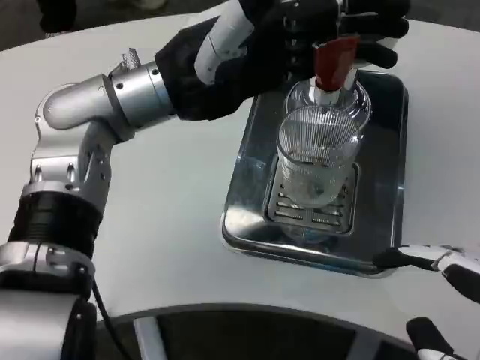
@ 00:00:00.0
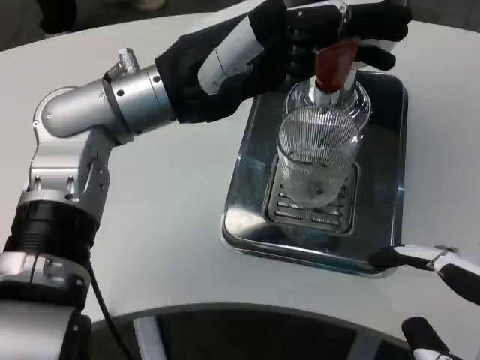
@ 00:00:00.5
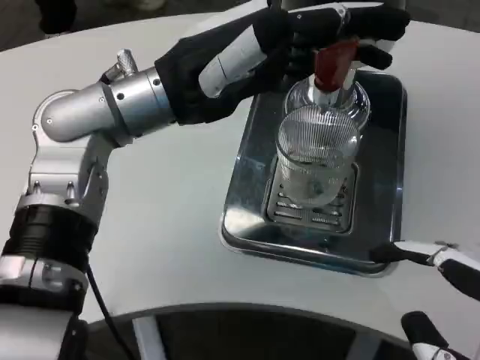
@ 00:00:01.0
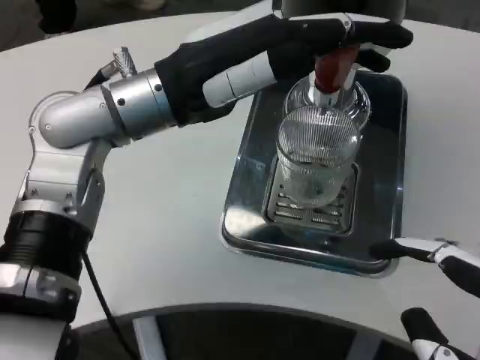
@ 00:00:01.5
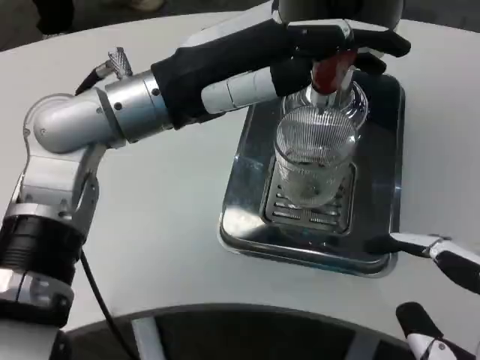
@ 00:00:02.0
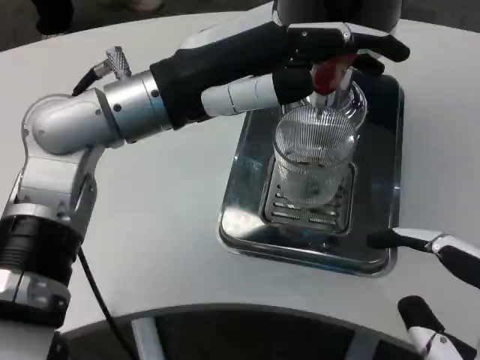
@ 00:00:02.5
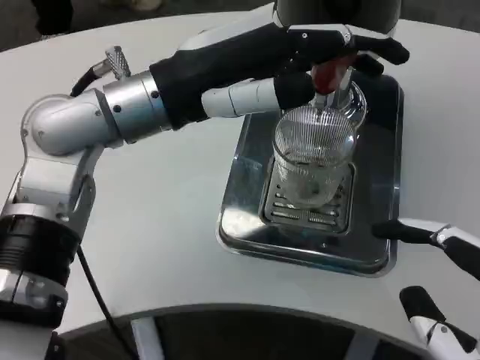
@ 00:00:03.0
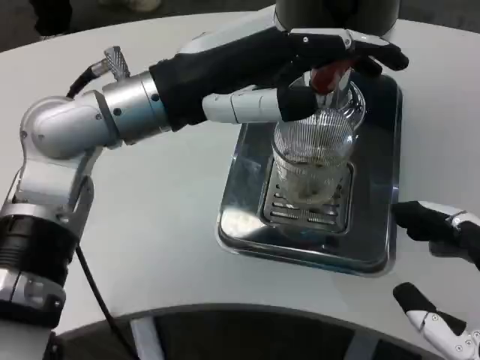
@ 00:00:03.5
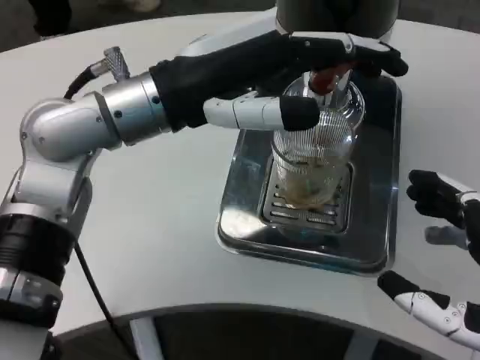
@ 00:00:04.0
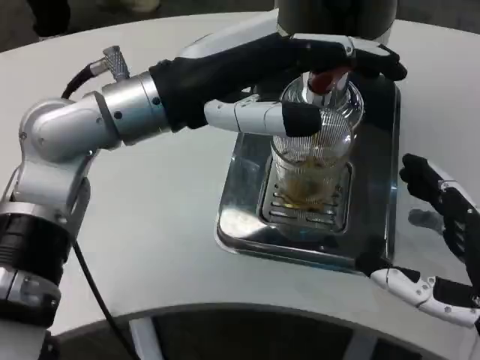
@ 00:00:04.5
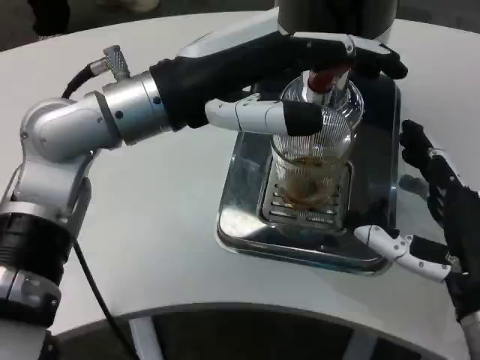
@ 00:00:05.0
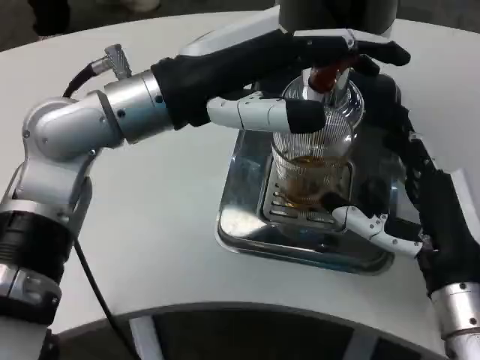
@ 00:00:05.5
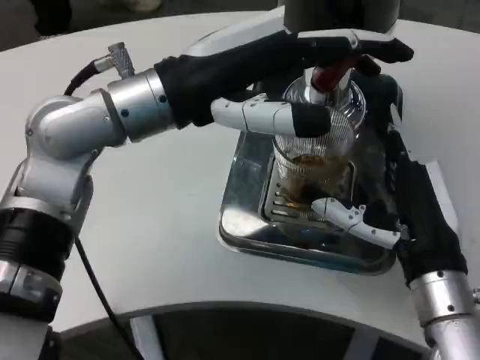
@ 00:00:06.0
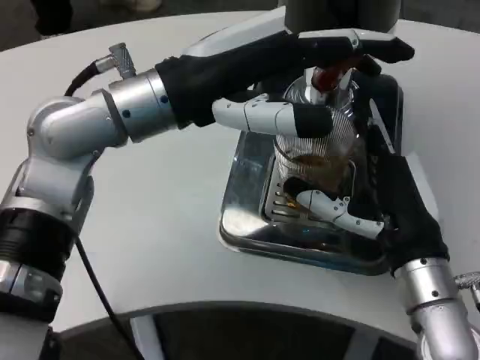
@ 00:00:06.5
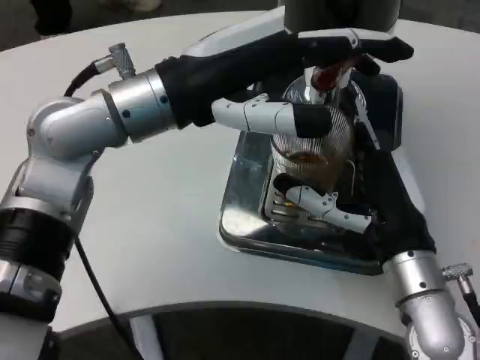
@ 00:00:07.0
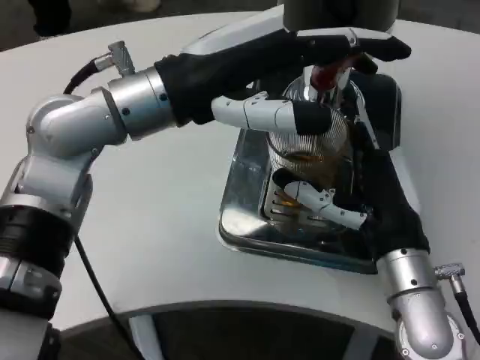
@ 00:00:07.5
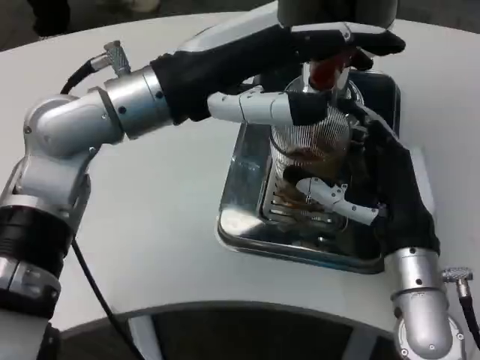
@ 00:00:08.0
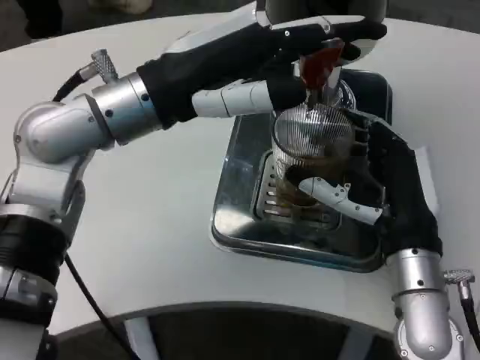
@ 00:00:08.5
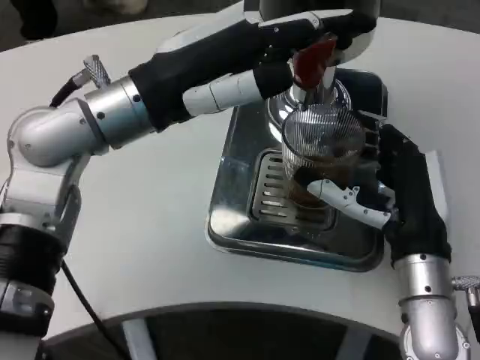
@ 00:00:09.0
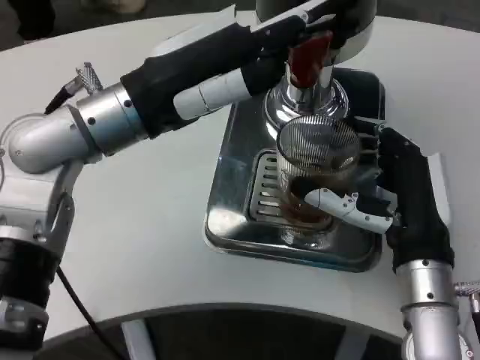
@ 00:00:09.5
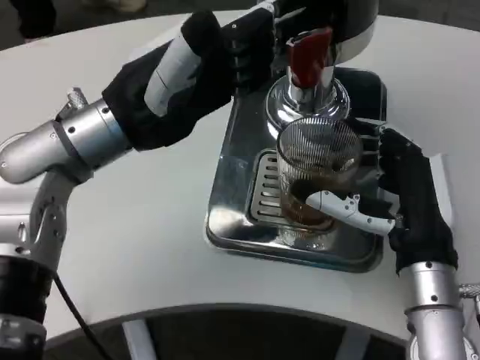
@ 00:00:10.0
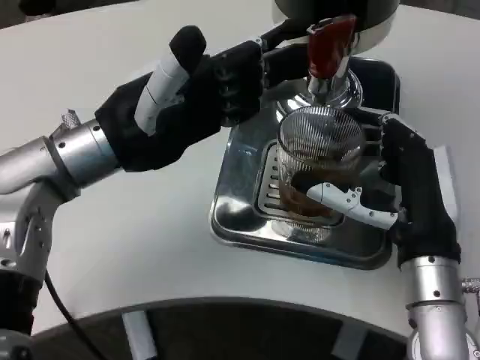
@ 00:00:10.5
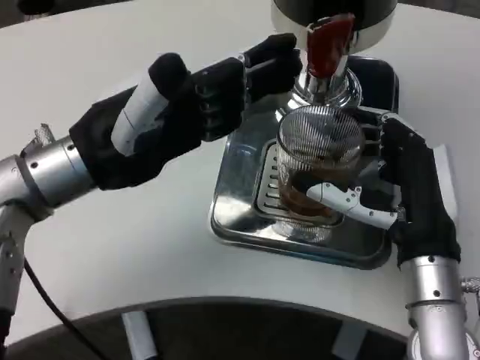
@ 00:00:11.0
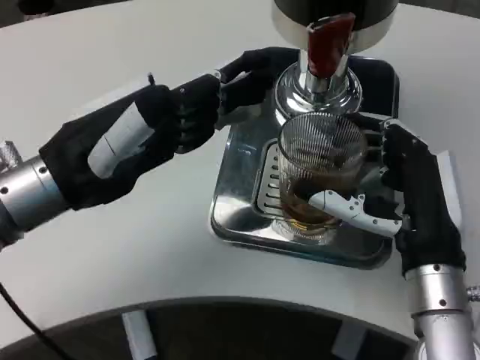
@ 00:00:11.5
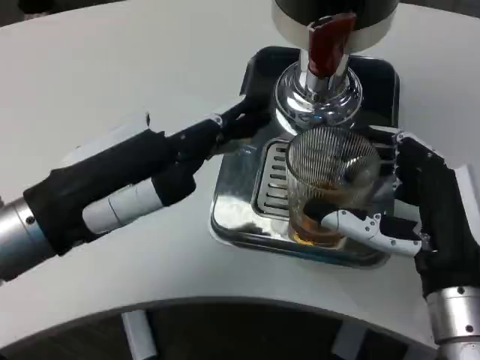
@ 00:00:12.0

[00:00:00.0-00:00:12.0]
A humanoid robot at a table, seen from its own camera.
Task of the whole recording: Grasp the cup under the faucet to collect the drink, then remove the cup.
00:00:02.0 to 00:00:04.0: The right hand ends up approximately 5 cm from where it was.
00:00:04.0 to 00:00:06.0: The right hand moves forward and to the left, about 15 cm.
00:00:10.0 to 00:00:12.0: The left hand shifts approximately 10 cm backward.

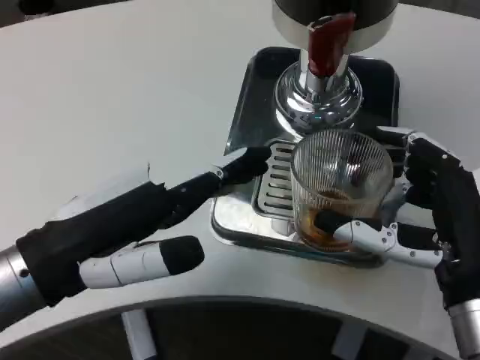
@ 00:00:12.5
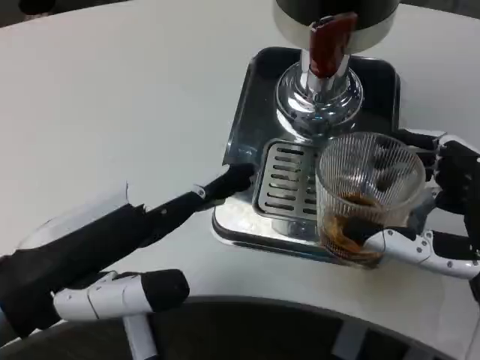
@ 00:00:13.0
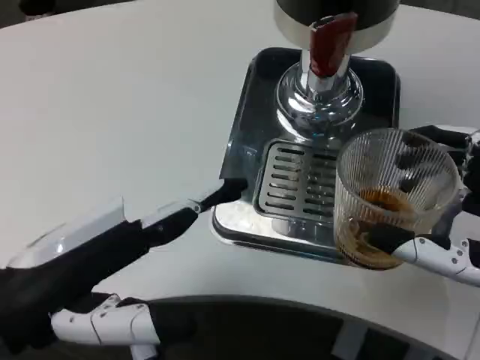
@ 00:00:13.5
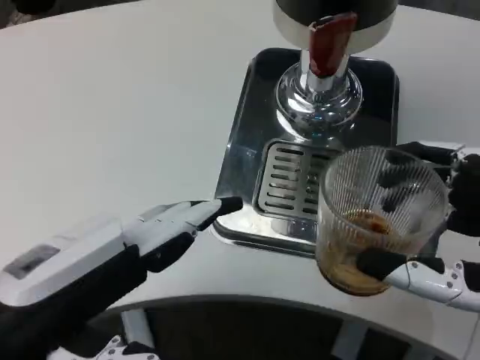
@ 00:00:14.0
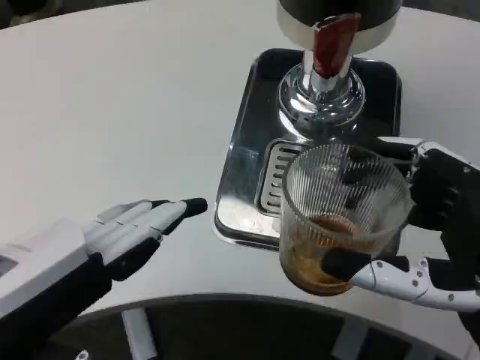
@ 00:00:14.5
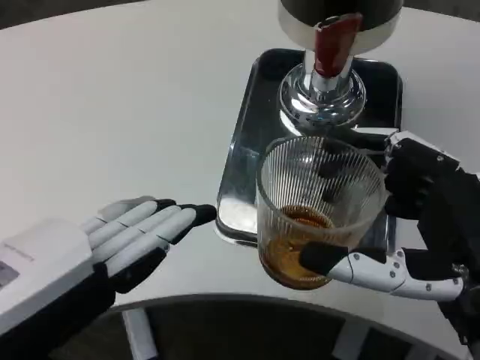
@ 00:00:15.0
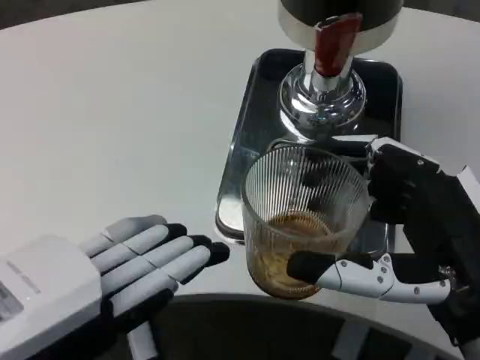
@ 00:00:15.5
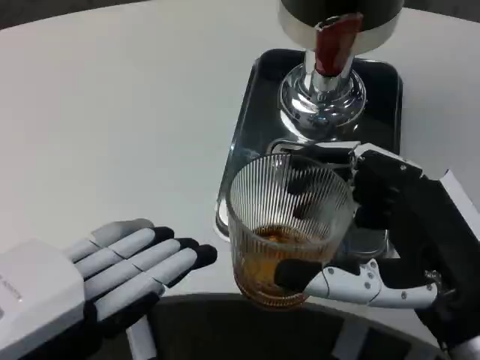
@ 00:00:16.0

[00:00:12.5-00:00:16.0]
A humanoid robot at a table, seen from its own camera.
Task of the whole recording: Grasp the cup under the faucet to collect the drink, then remove the cup.
00:00:12.5 to 00:00:14.5: The right hand moves backward, about 5 cm. The left hand is displaced backward by some 10 cm.

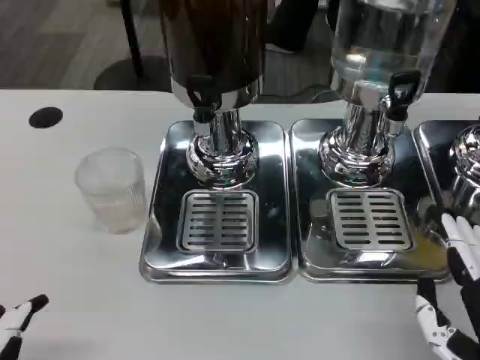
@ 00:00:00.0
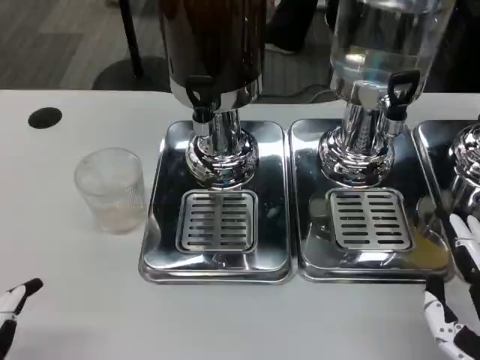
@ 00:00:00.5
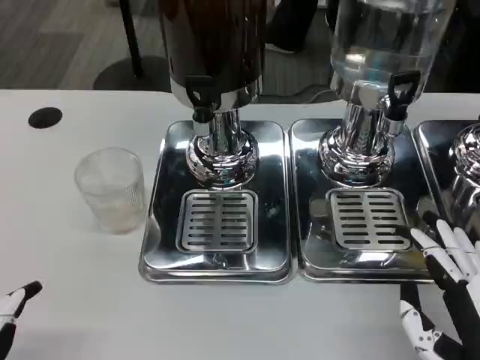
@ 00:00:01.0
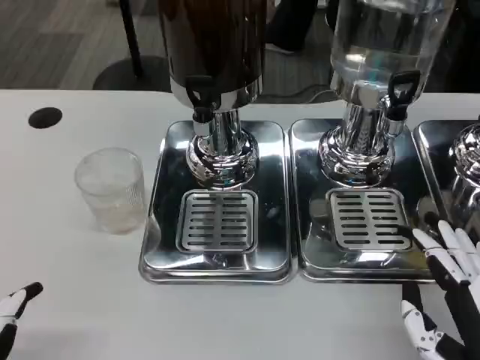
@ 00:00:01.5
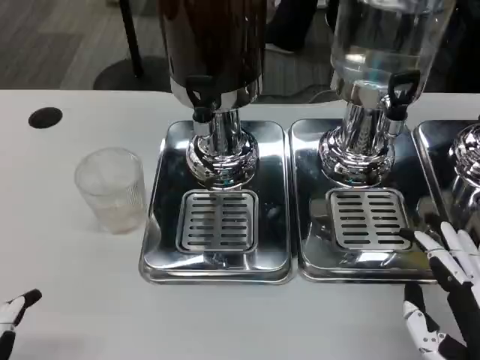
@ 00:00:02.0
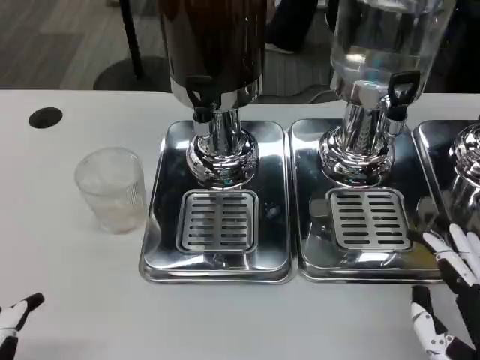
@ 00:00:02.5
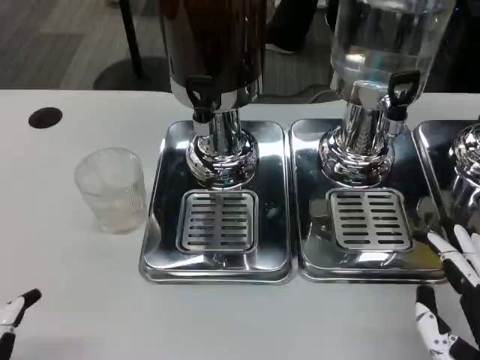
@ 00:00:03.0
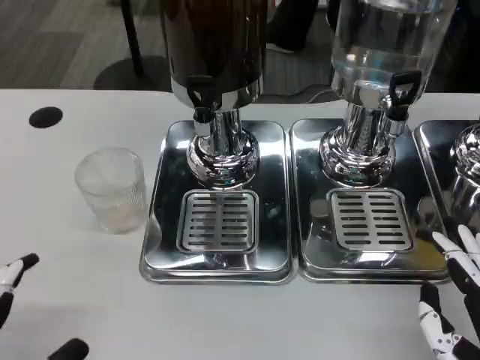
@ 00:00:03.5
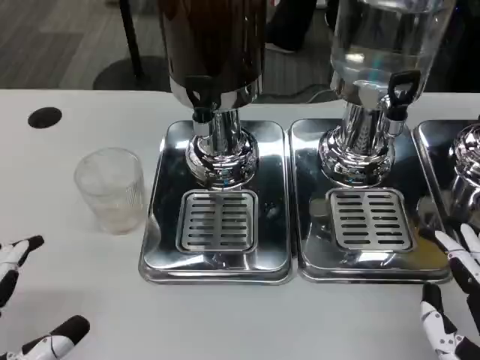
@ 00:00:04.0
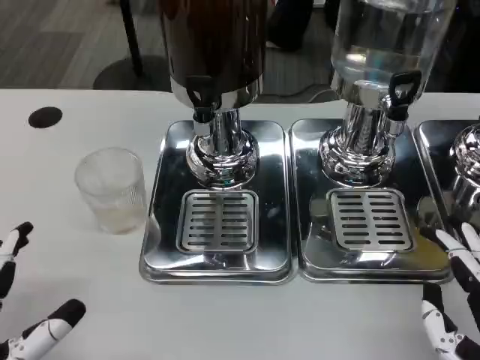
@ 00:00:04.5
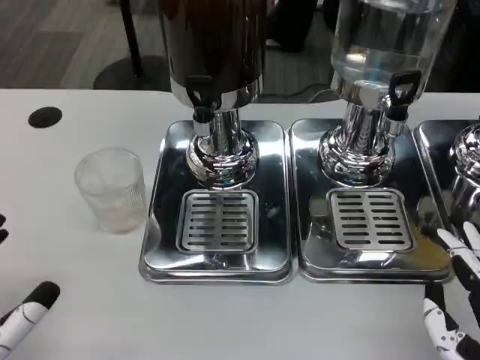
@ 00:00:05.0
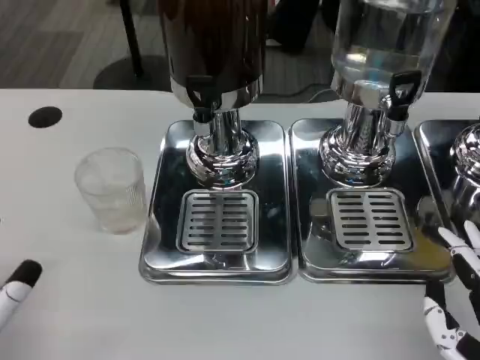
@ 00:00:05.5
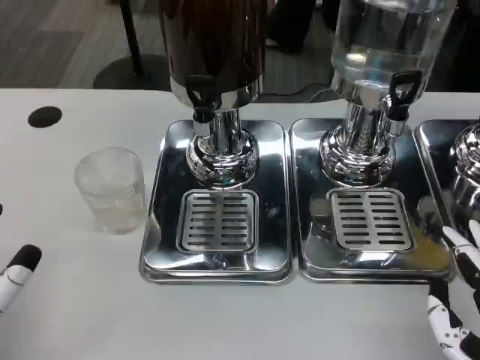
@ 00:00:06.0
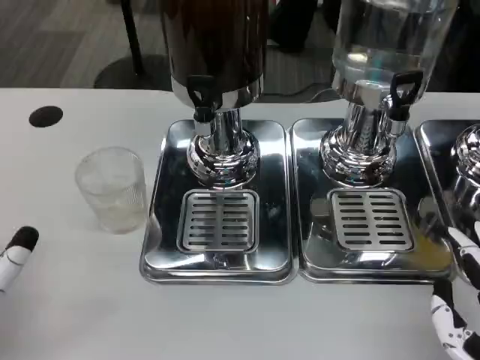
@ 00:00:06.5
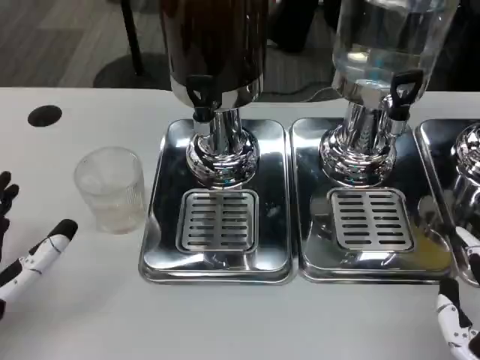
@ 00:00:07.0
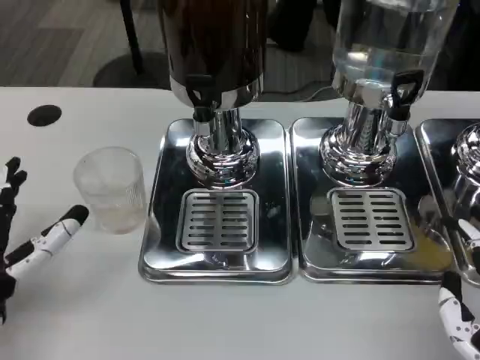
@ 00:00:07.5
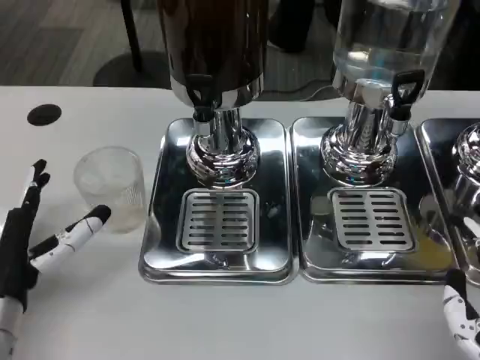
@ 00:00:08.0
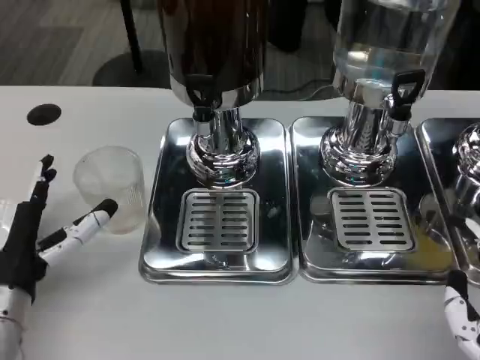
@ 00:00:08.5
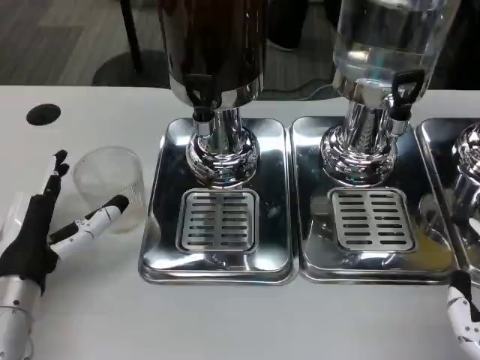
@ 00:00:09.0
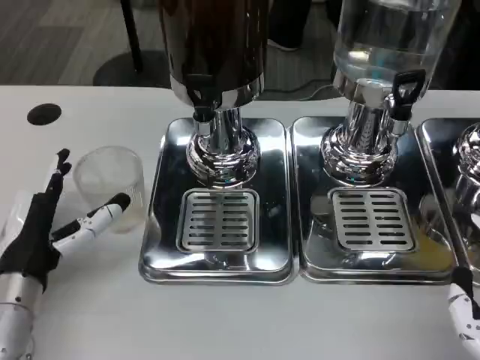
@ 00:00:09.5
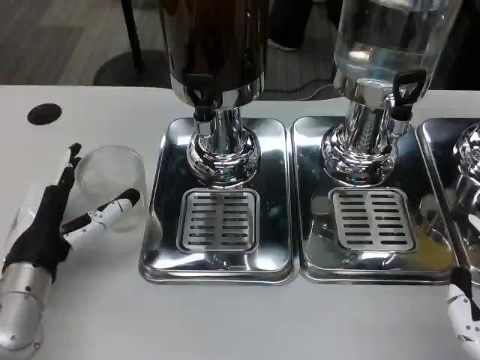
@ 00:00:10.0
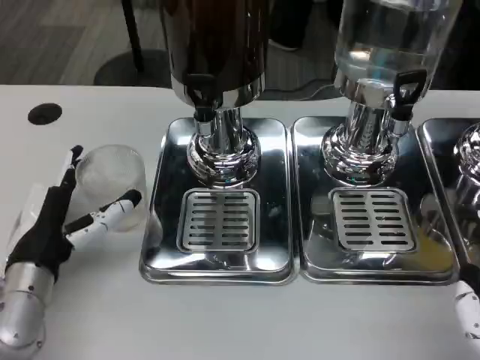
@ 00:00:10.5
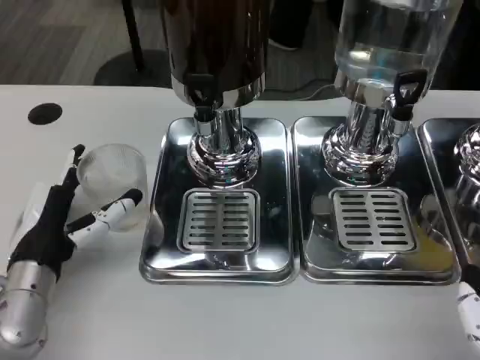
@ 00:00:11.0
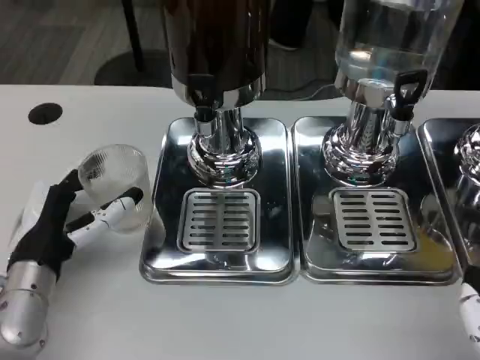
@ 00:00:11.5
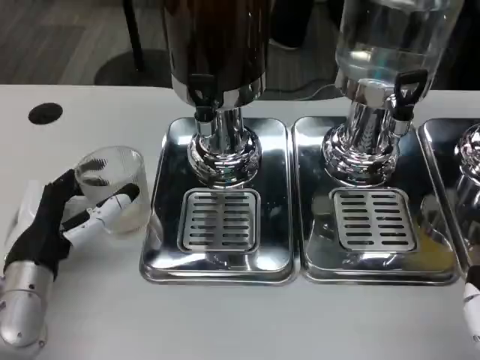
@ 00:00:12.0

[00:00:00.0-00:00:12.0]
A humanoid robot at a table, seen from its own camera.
Task of the whole recording: Grasp the cup under the faucet to collect the drink, then remove the cup.
00:00:00.0 to 00:00:02.0: Neither hand changes place.
00:00:02.0 to 00:00:04.0: The left hand goes about 5 cm forward.
00:00:04.0 to 00:00:06.0: The left hand travels downward and forward by some 10 cm.
00:00:06.0 to 00:00:08.0: The left hand moves forward, about 10 cm.
00:00:08.0 to 00:00:10.0: The hands move only a little.
00:00:10.0 to 00:00:12.0: Neither hand changes place.
